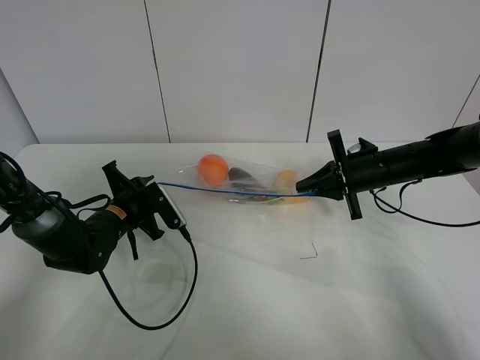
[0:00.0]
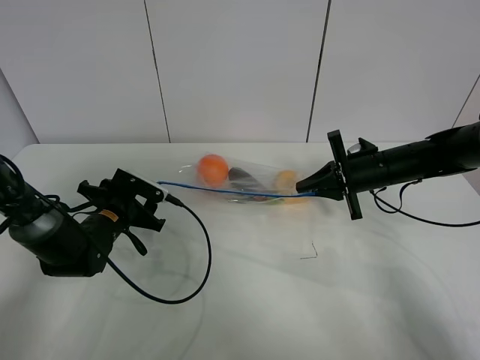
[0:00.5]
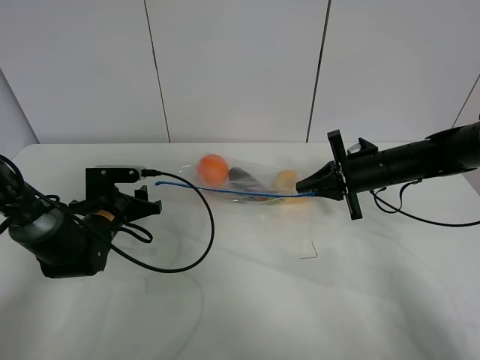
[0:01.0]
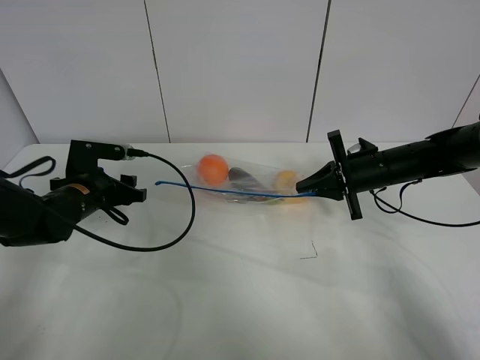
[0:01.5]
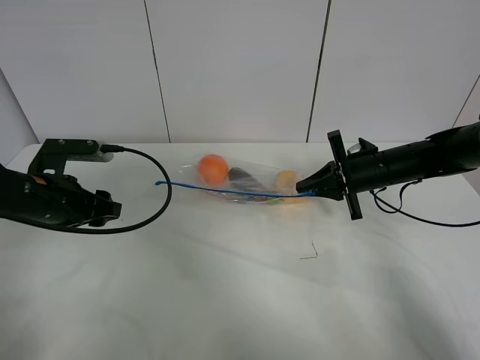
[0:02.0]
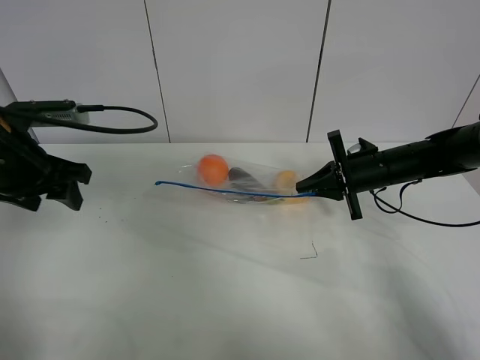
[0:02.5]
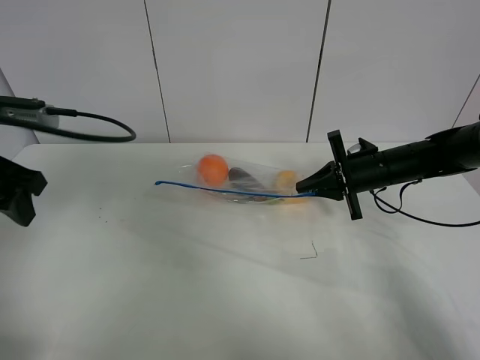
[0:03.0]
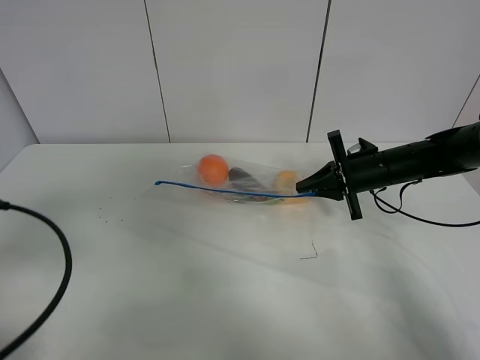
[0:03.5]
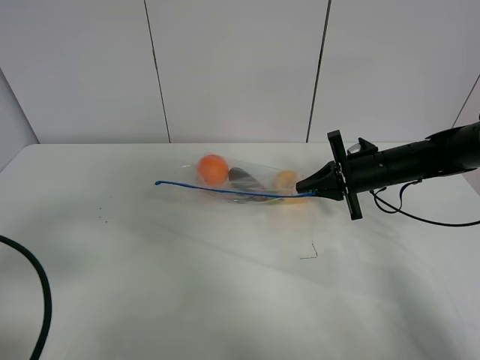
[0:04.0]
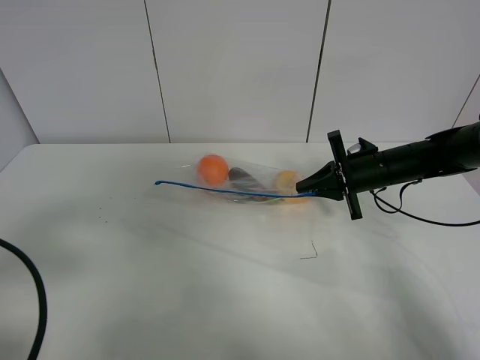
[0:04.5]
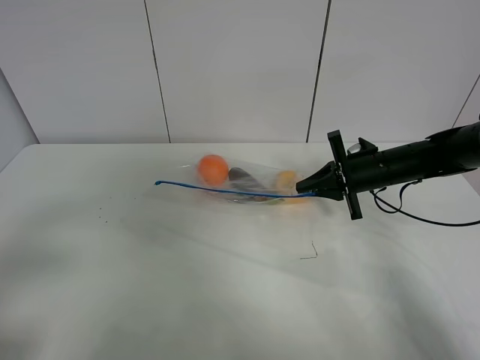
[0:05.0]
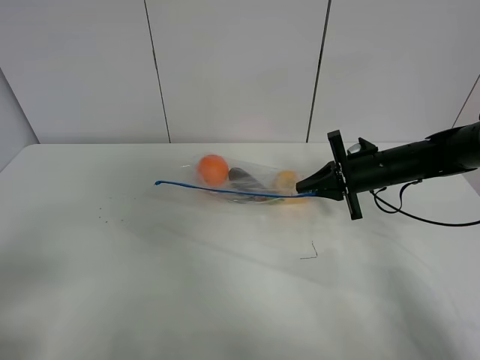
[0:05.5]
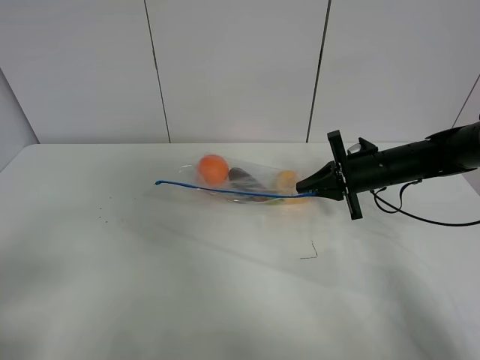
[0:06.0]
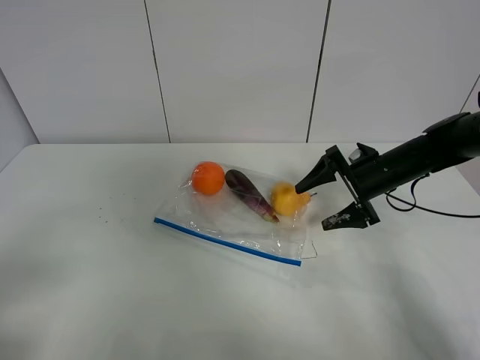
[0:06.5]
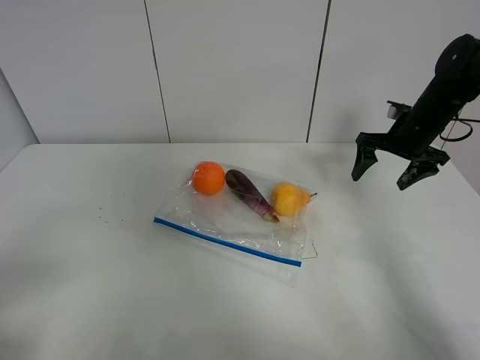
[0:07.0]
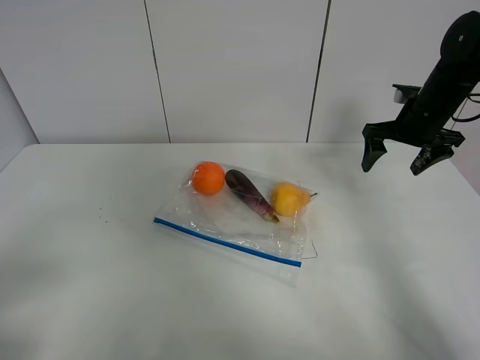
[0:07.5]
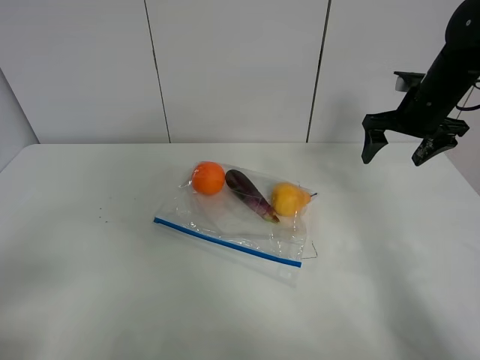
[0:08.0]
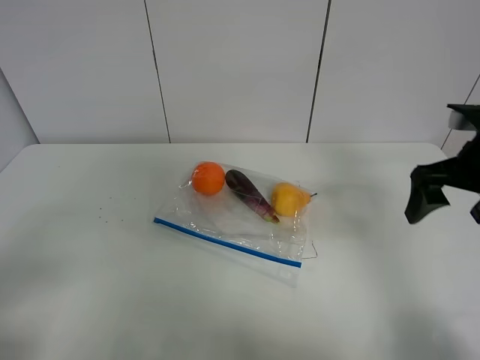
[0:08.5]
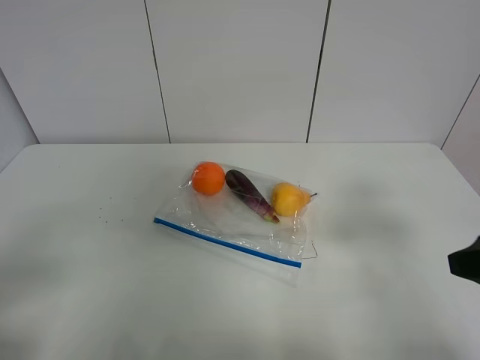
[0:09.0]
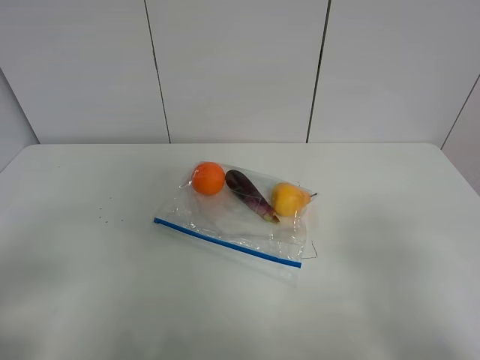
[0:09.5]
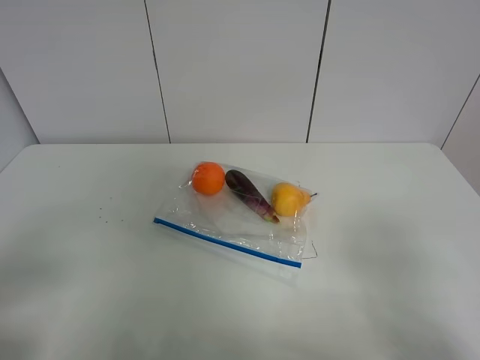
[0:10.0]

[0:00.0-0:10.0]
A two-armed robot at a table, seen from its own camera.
0:00.0 to 0:02.0: The left gripper goes some 15 cm upward, to the left and backward, and opens its fingers.
0:02.0 to 0:04.0: The left gripper heads backward, covering roughly 20 cm.
0:04.0 to 0:06.0: The left gripper goes roughly 10 cm backward.
0:06.0 to 0:08.0: The right gripper is displaced upward by some 10 cm, and opens up.
0:08.0 to 0:10.0: The right gripper goes about 40 cm backward.
